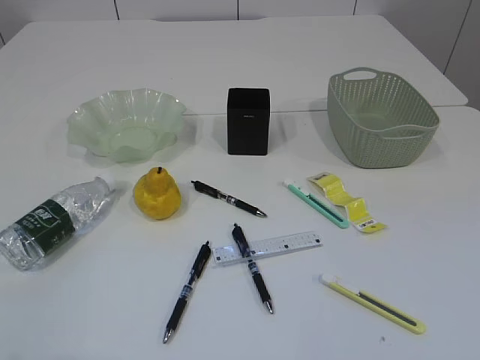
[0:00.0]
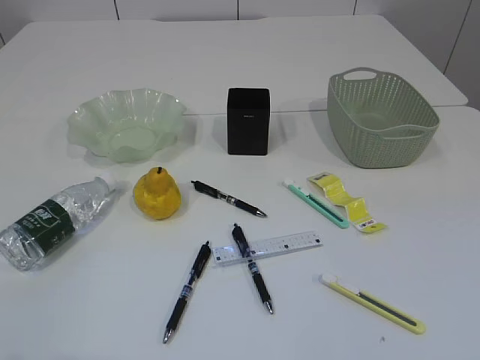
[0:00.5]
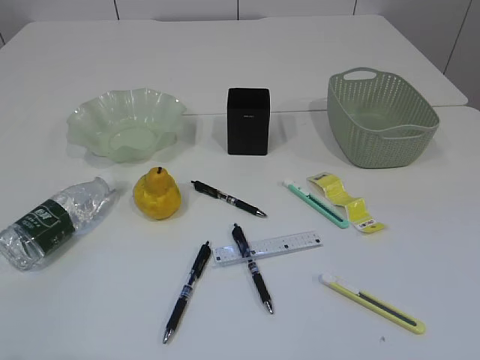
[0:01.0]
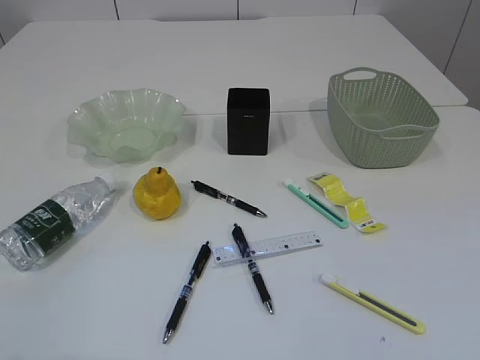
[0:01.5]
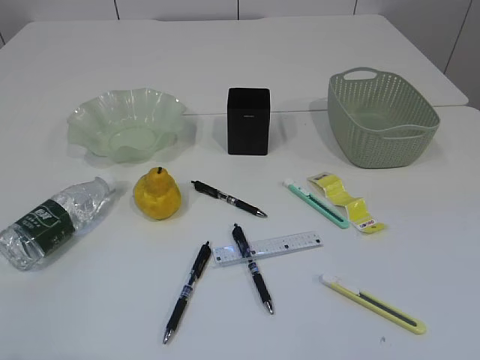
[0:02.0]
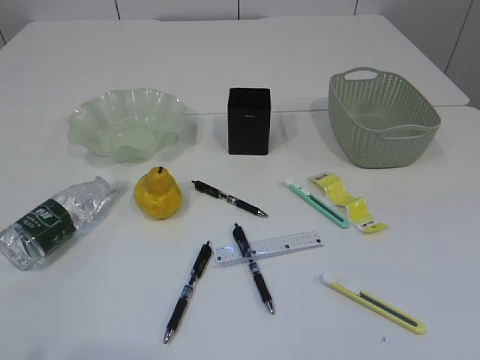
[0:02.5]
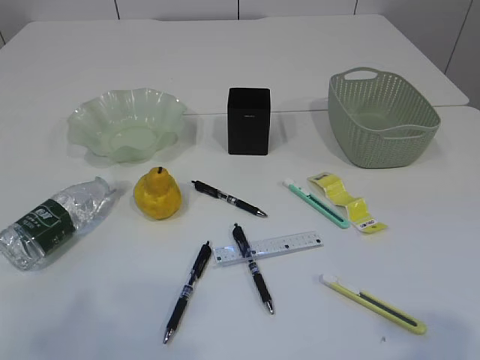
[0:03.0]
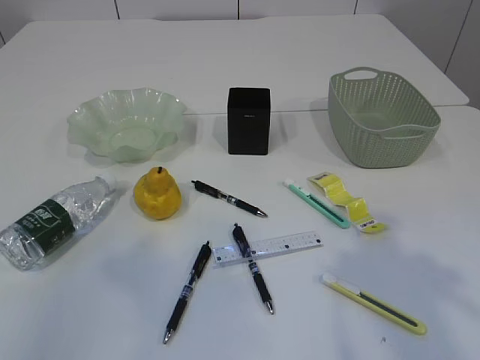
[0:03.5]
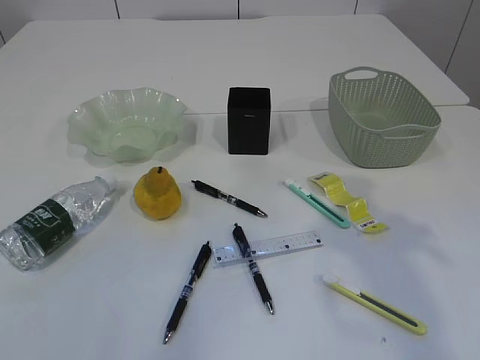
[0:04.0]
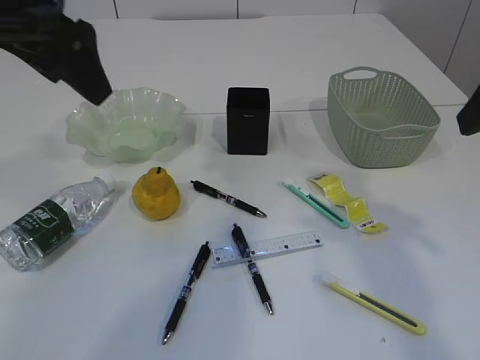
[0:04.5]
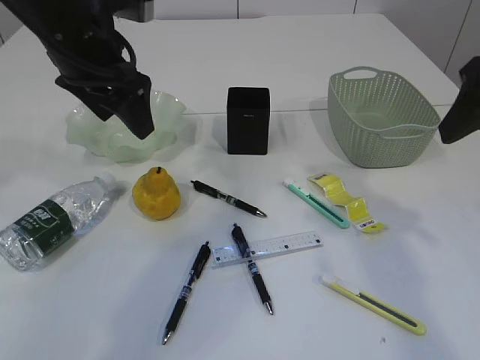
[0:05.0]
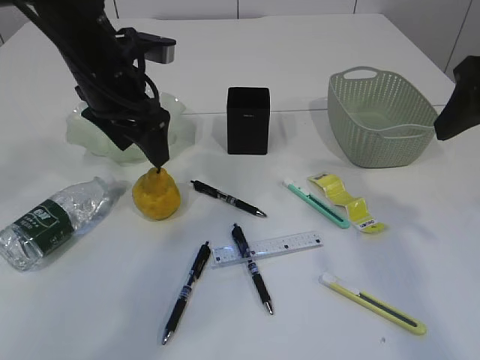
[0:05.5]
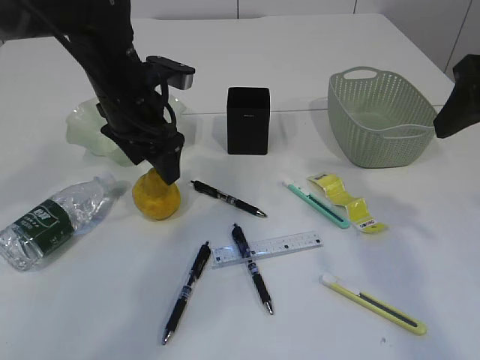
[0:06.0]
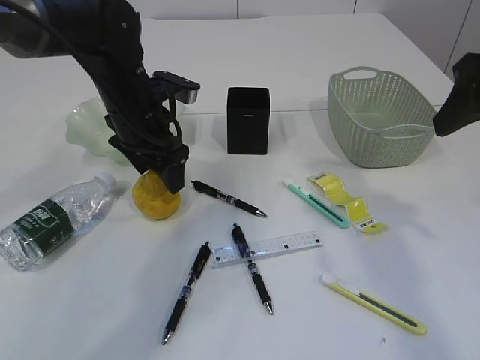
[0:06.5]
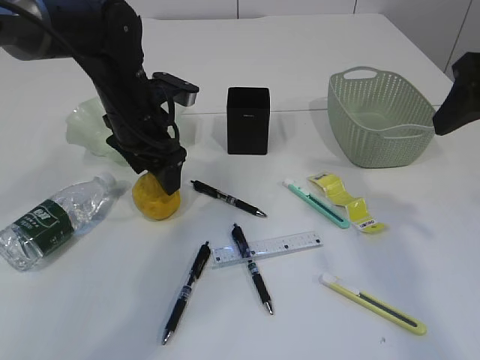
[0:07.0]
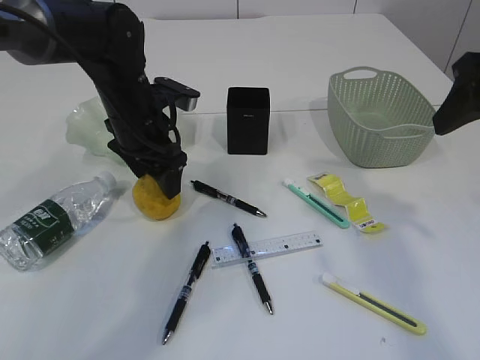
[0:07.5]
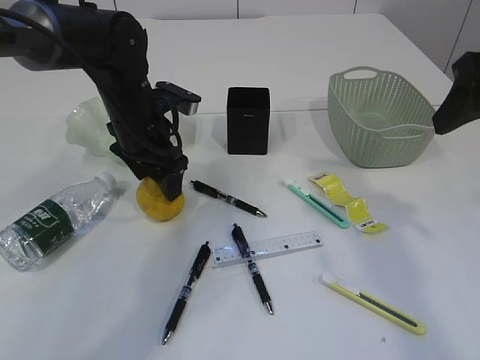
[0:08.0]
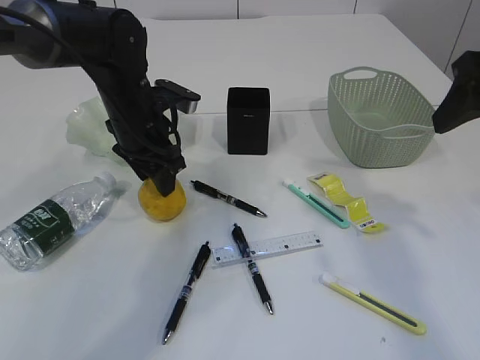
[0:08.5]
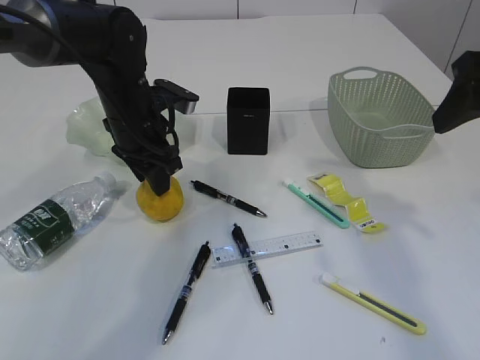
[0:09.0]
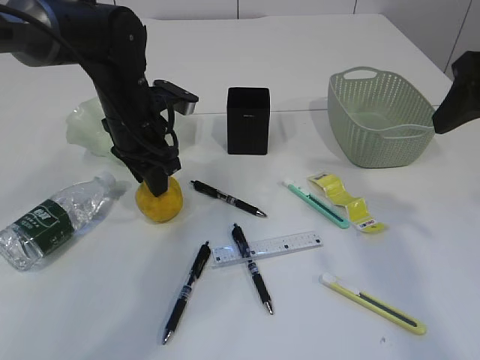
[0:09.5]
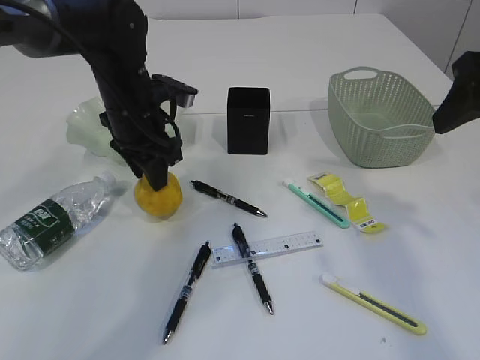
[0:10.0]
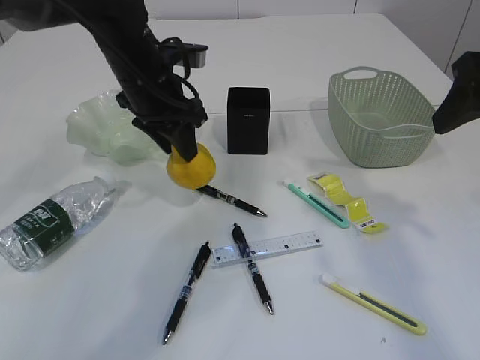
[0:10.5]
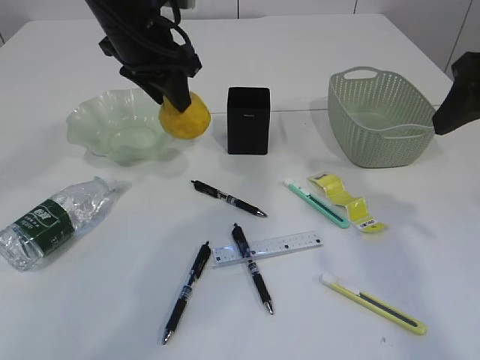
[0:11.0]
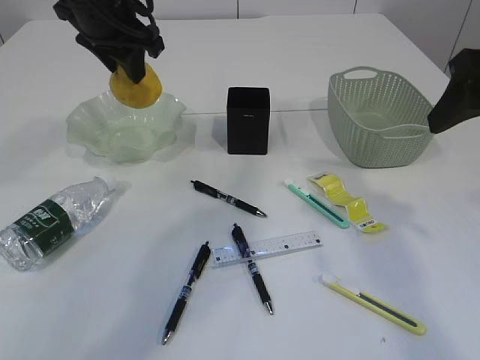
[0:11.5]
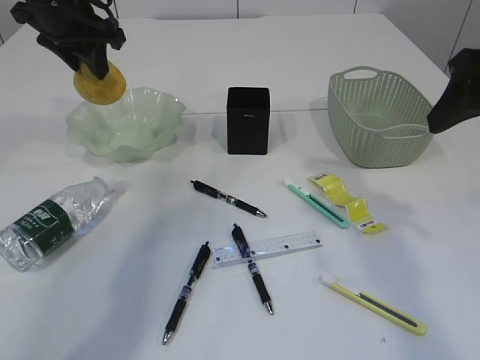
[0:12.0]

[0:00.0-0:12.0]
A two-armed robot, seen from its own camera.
0:02.0 to 0:04.0: The left gripper travels forward and upward by some 25 cm. Meanwhile the right gripper travels forward by roughly 25 cm.
0:04.0 to 0:06.0: The right gripper heads forward, covering about 5 cm, while the left gripper moves forward, downward and to the right, about 35 cm.
0:06.0 to 0:08.0: The grippers make only small movements.
0:08.0 to 0:10.0: The left gripper closes up.
0:10.0 to 0:12.0: The left gripper is displaced upward and to the left by roughly 15 cm.

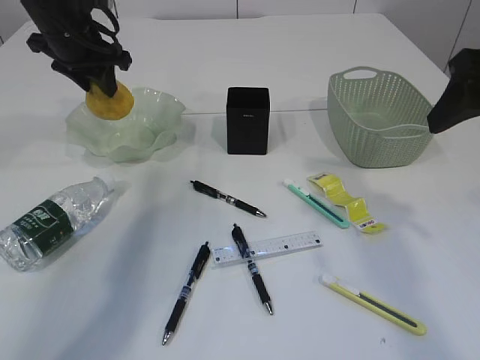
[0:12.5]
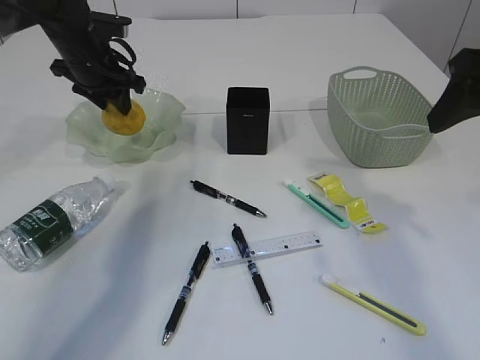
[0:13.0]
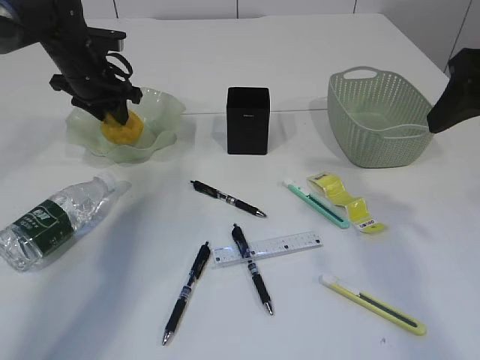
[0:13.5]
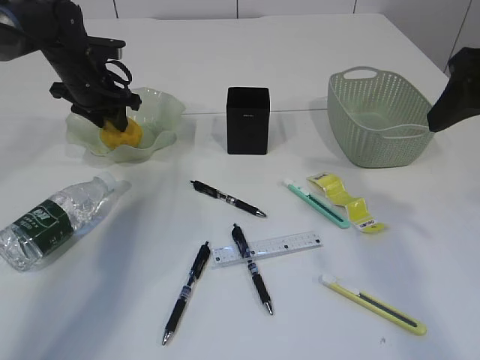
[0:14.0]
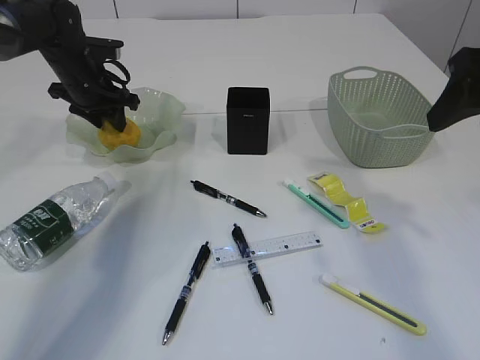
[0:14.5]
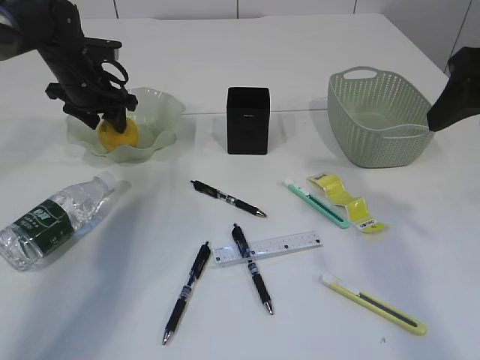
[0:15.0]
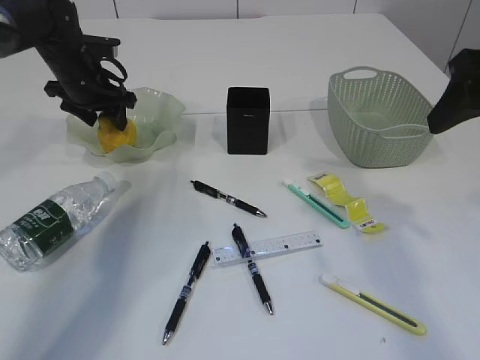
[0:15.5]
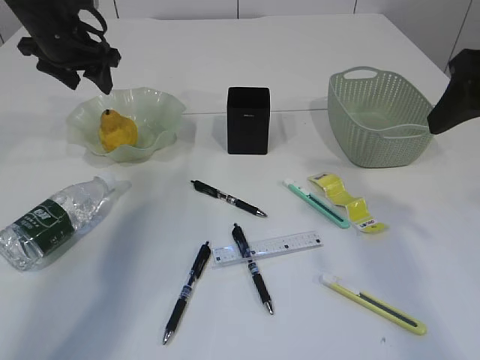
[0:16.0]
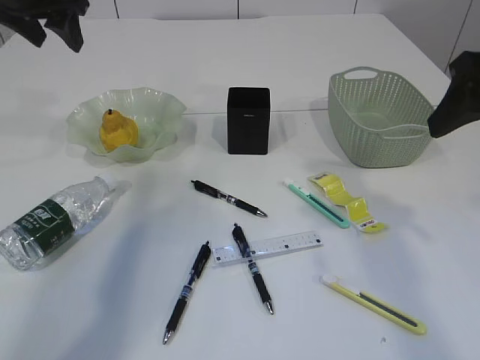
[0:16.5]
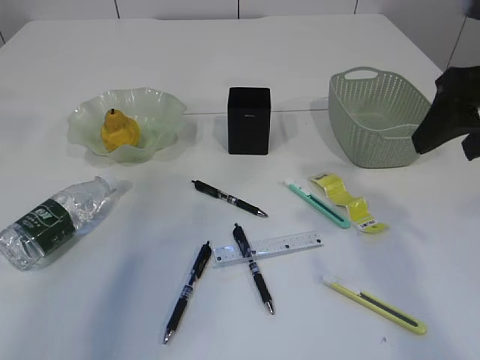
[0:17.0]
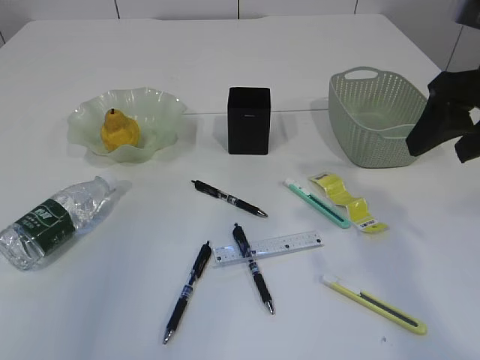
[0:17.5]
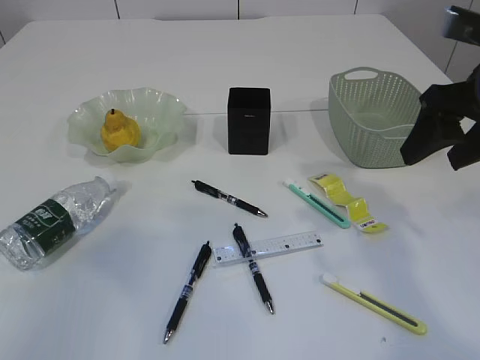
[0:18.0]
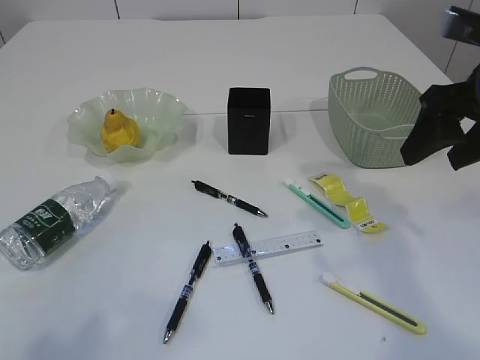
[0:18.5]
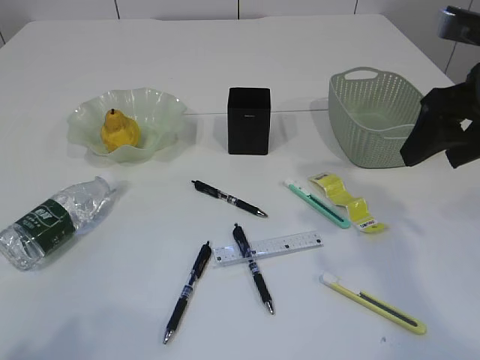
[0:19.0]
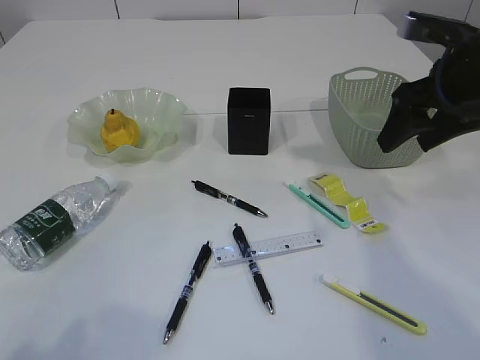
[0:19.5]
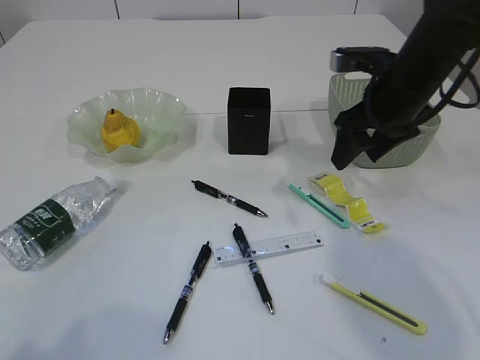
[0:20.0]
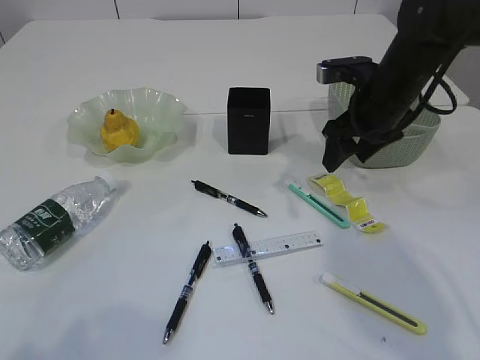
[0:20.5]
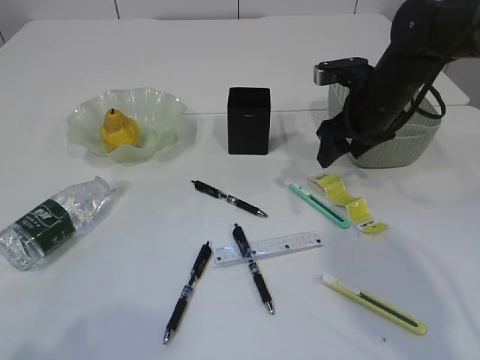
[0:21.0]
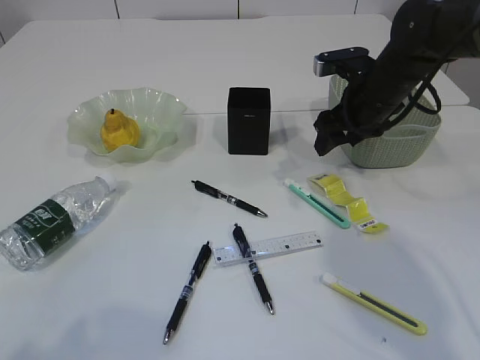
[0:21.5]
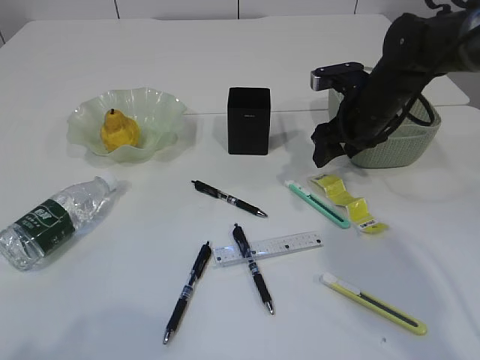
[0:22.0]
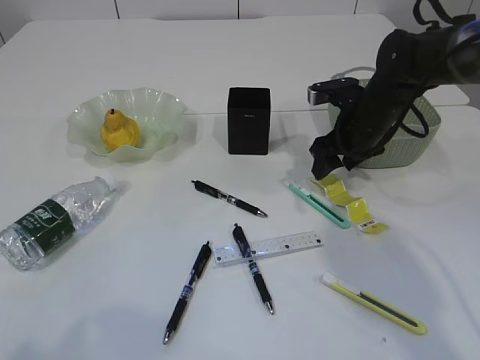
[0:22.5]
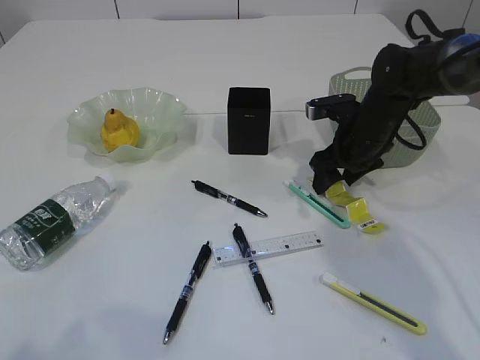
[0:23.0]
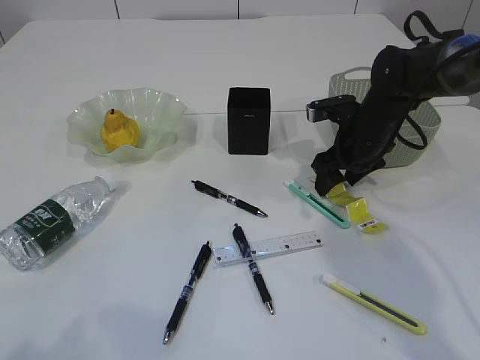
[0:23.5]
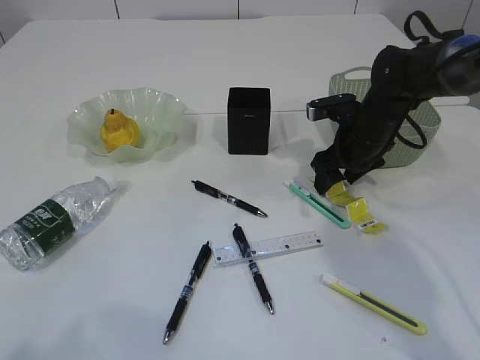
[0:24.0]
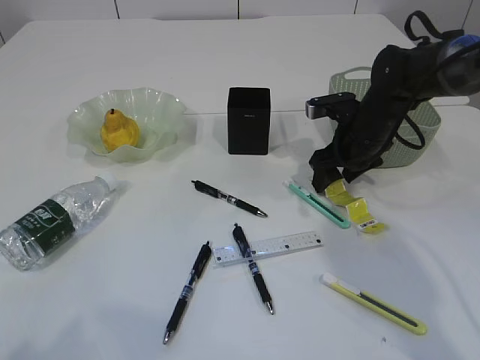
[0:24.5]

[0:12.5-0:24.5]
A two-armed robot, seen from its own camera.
Step, 0:12.5 to 0:16.0: Place the pear in the plate.
0:12.5 to 0:14.5: The left gripper heads downward, covering some 10 cm.
0:14.5 to 0:16.5: The left gripper shifts roughly 15 cm upward and backward, and opens.
0:16.5 to 0:18.5: The left gripper moves backward, approximately 40 cm, and closes up.
0:18.5 to 0:20.5: The right gripper goes roughly 15 cm forward and downward.
0:20.5 to 0:22.5: The right gripper is displaced downward by approximately 5 cm.
0:22.5 to 0:24.5: The grippers stay close to where they were, moving slightly.

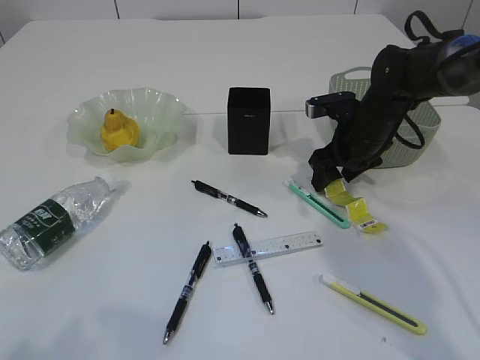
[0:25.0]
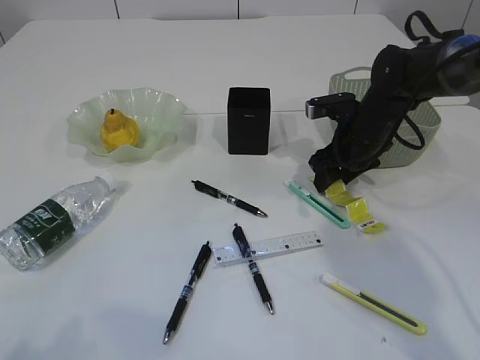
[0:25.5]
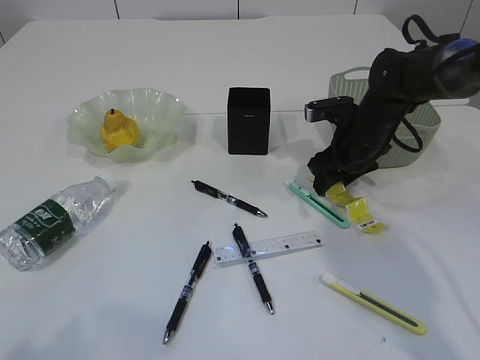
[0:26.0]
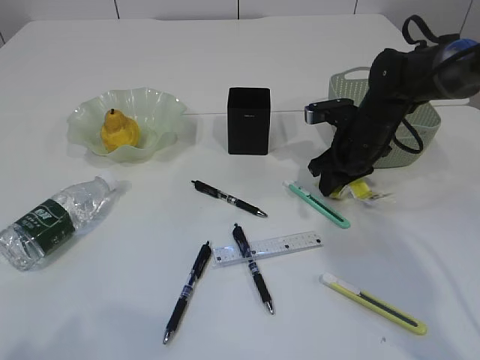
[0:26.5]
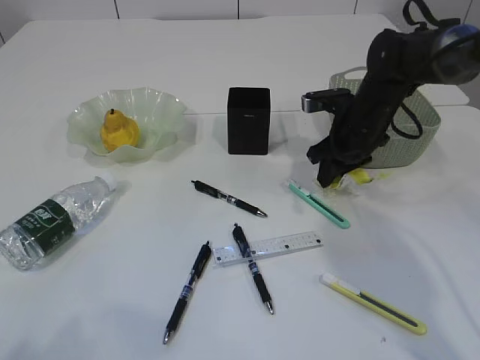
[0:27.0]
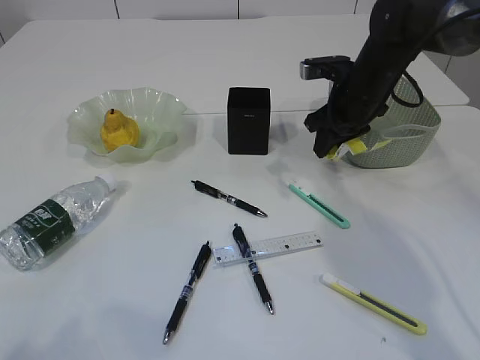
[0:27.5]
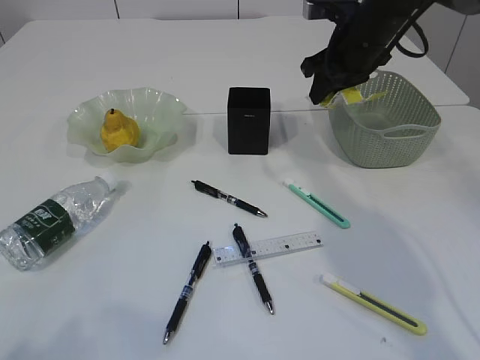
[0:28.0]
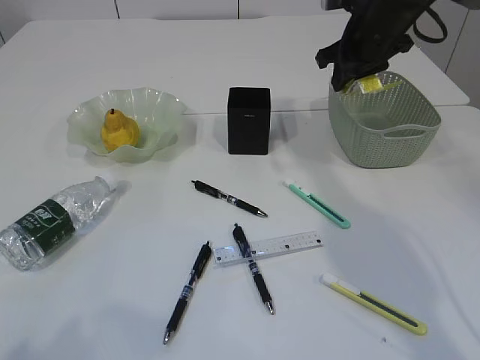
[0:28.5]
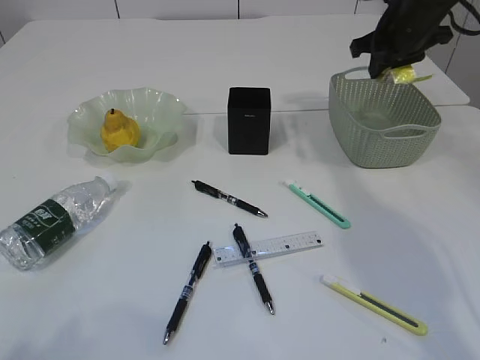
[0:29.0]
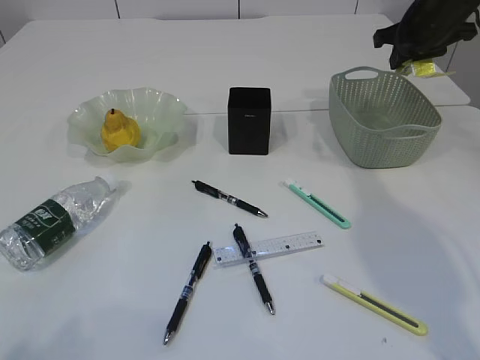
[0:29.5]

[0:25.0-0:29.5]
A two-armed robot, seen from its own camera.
Step, 0:25.0 to 0:28.0: Pick up the plastic.
0:25.0 to 0:27.0: The right gripper closes up.
0:27.0 to 0:29.5: The right gripper is displaced upward, to the right and forward by roughly 15 cm.
